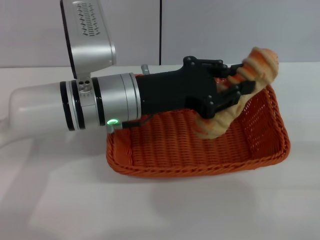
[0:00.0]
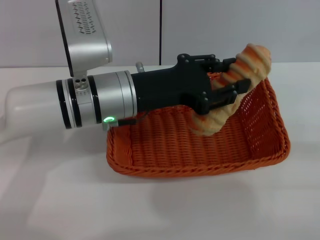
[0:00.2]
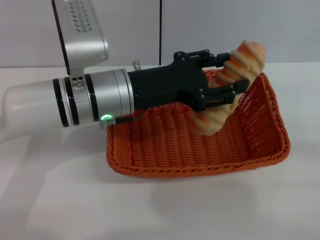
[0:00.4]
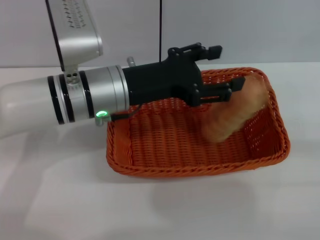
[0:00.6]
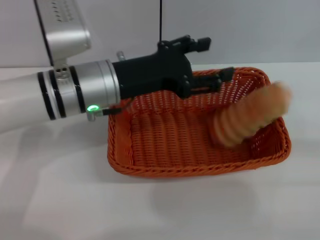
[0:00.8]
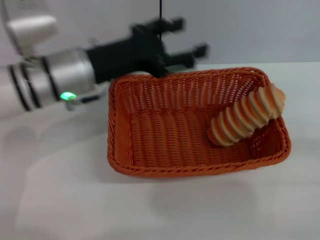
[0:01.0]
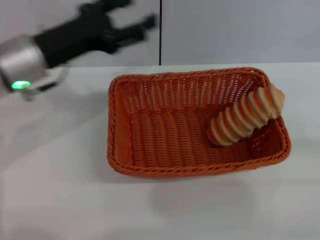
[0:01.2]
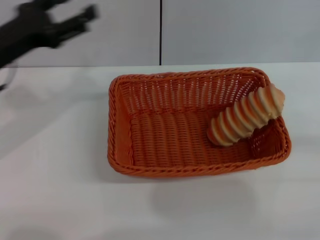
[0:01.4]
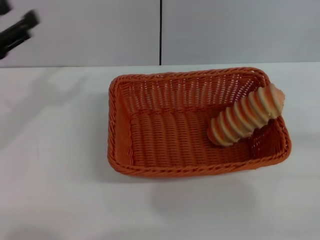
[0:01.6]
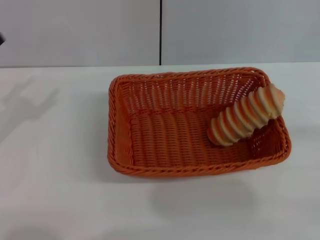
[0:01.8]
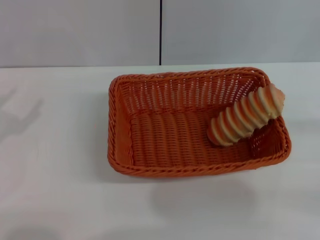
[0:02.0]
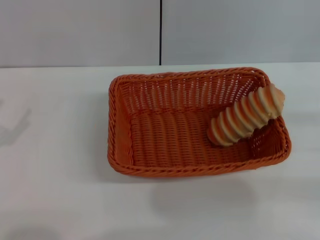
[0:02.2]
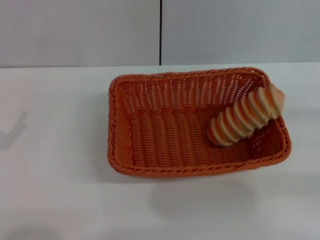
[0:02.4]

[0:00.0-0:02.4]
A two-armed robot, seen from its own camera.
0:00.0 to 0:01.2: The left gripper goes about 10 cm to the left, and opens.
0:01.2 to 0:02.4: The left gripper is displaced to the left, backward and downward by some 25 cm. The right gripper moves forward, about 5 cm.
